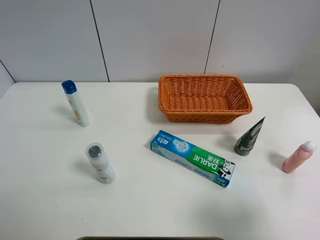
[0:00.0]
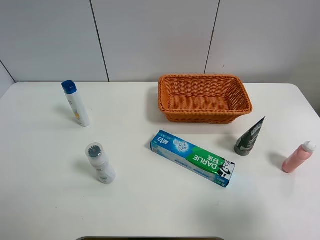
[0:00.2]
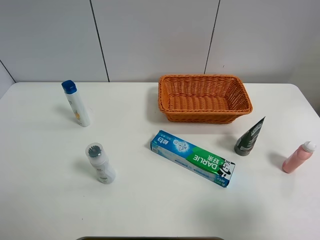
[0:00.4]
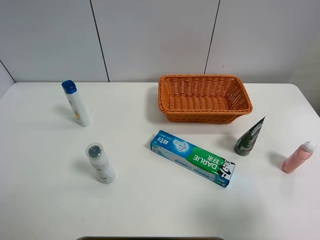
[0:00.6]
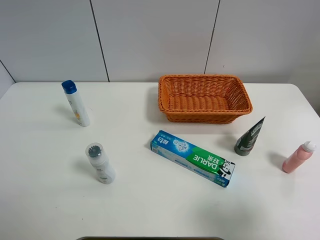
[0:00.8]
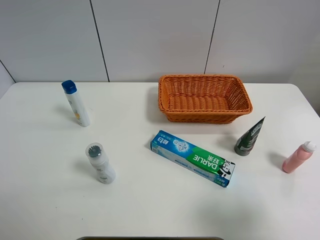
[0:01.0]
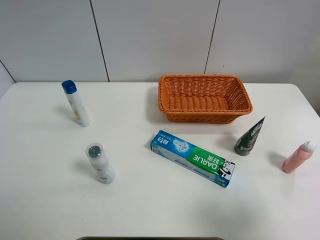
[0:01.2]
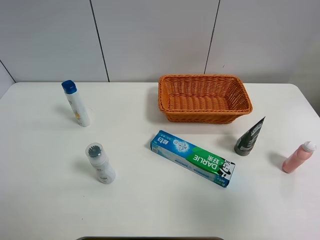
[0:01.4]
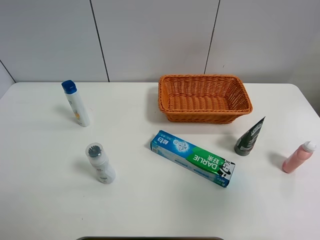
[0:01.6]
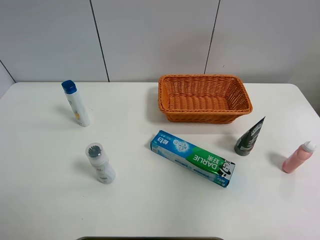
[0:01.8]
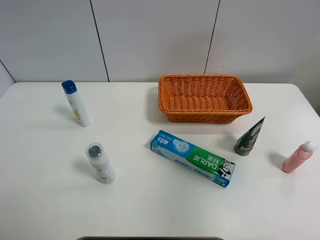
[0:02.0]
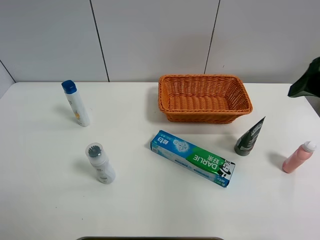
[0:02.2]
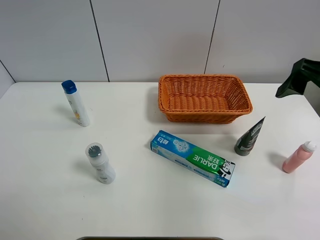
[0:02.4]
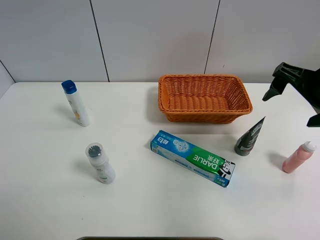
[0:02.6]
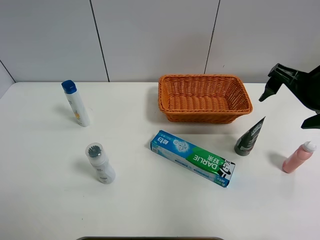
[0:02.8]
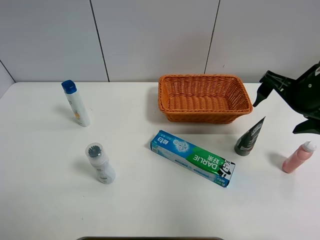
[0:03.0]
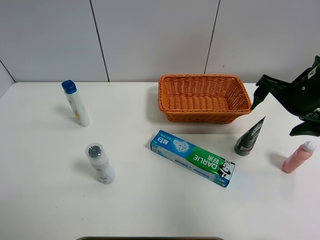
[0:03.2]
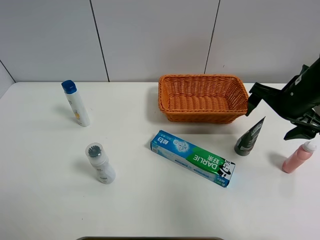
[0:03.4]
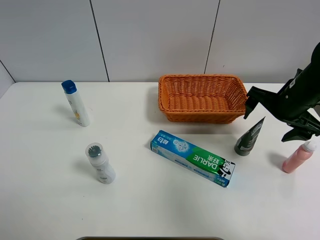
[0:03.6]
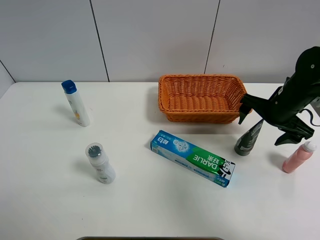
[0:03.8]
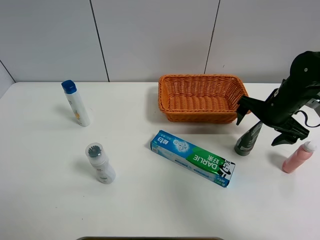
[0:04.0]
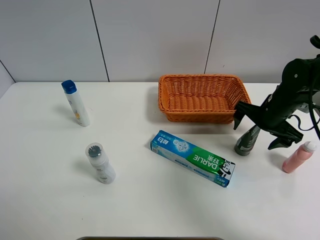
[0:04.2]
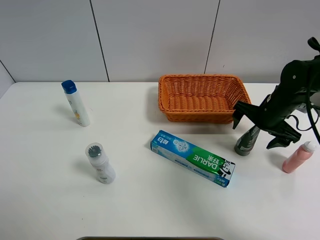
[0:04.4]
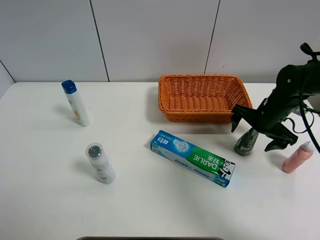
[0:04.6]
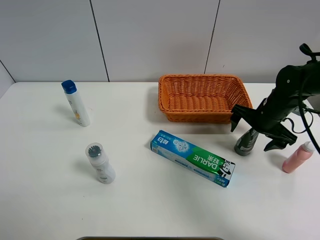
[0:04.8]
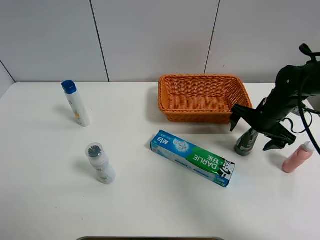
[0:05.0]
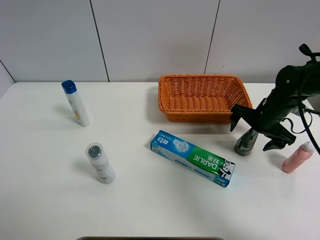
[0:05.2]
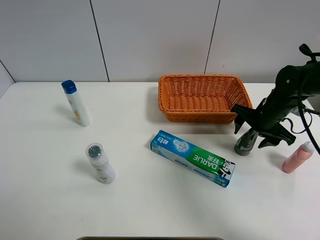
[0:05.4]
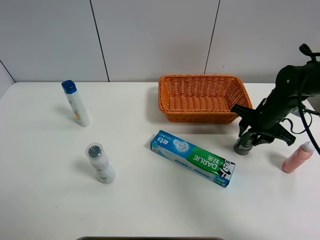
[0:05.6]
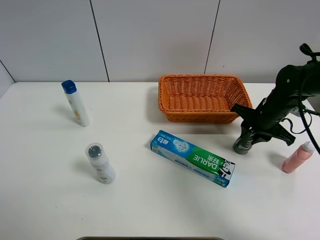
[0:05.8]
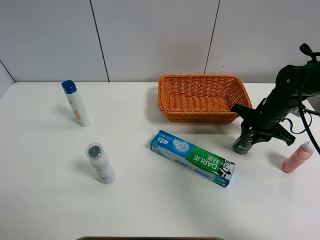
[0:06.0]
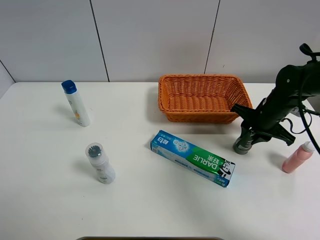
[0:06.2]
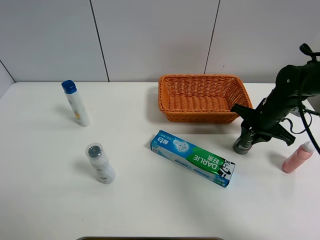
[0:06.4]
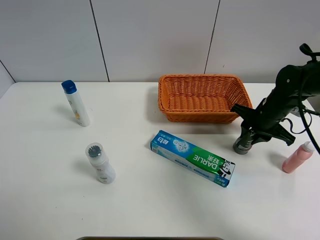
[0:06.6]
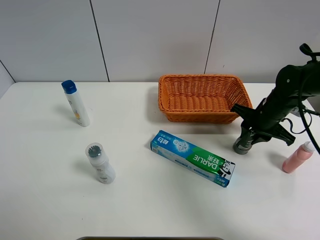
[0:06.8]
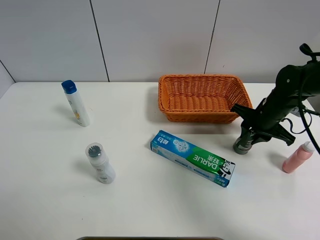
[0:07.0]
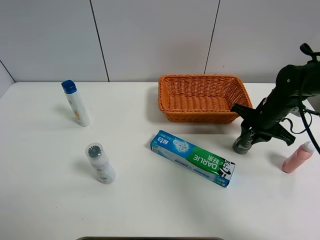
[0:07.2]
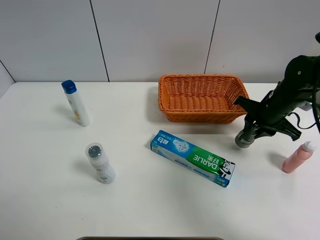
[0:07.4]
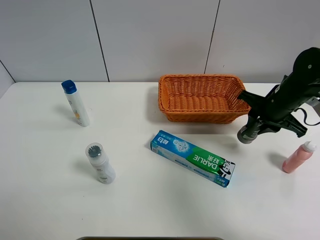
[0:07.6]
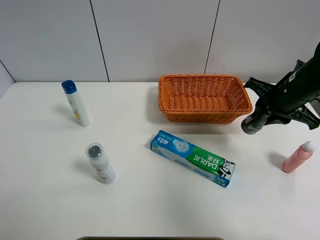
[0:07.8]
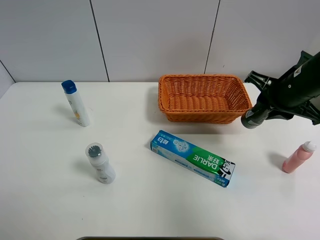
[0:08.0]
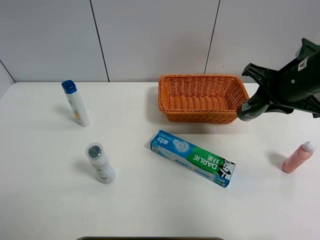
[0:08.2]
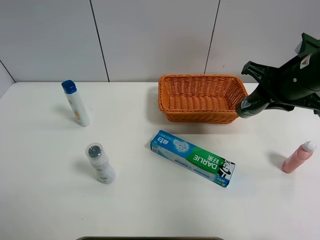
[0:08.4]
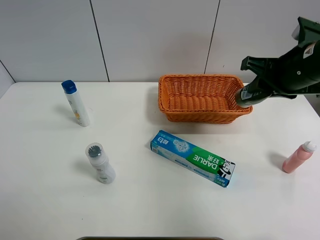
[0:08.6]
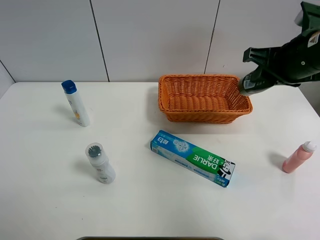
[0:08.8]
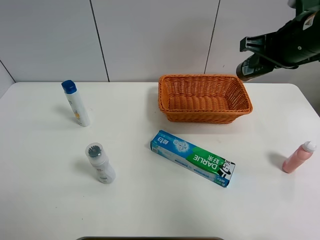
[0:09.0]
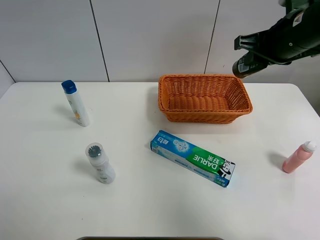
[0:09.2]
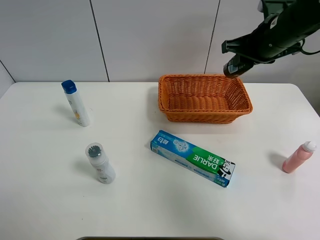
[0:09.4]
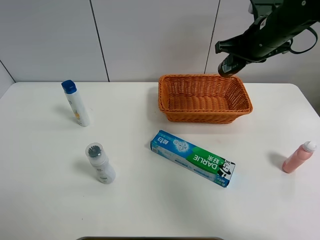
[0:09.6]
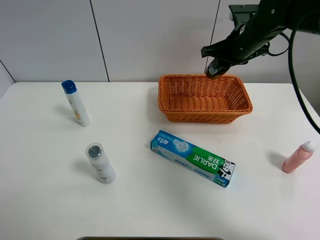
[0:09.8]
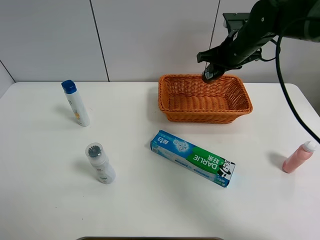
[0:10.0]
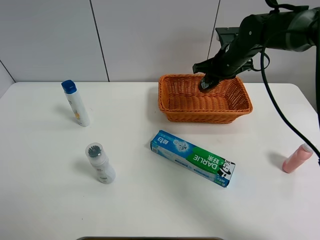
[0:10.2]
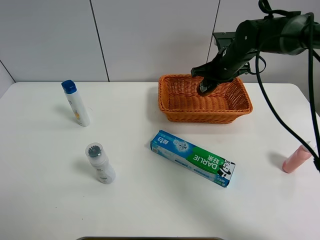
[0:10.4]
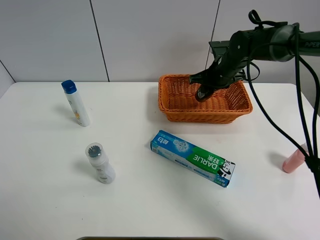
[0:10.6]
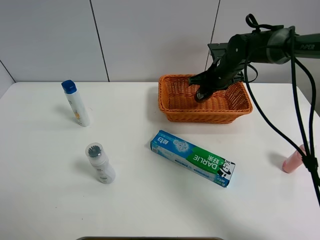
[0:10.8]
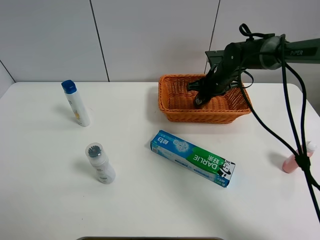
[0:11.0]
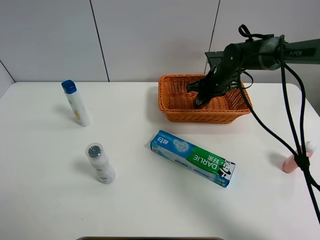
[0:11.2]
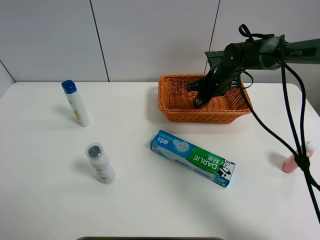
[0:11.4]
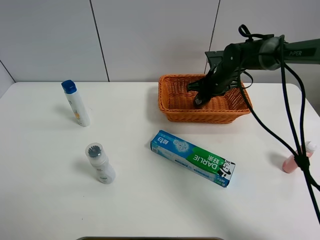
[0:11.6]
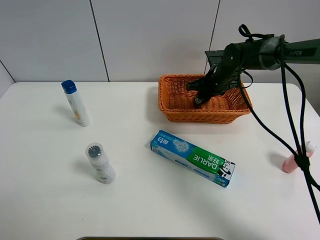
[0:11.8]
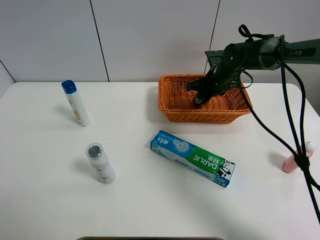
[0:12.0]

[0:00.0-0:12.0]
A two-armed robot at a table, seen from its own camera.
Task of the whole recording: Place the object closest to the toothpaste in the basket.
Step, 0:00.0 to 0:05.8: Grasp the soft facial cleanser with right gripper.
0:00.0 to 0:01.6: The right gripper goes about 10 cm upward.
0:01.6 to 0:03.0: The right gripper travels forward and downward by some 25 cm.
0:03.0 to 0:04.4: The right gripper moves downward and forward, some 10 cm.
0:04.4 to 0:06.0: The right gripper closes its fingers.
0:06.0 to 0:07.6: The right gripper heads upward, covering approximately 5 cm.
0:07.6 to 0:09.0: The right gripper is displaced upward by about 15 cm.
0:09.0 to 0:10.4: The right gripper travels forward, downward and to the left by about 20 cm.
0:10.4 to 0:12.0: The right gripper moves roughly 5 cm.

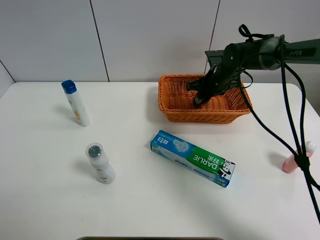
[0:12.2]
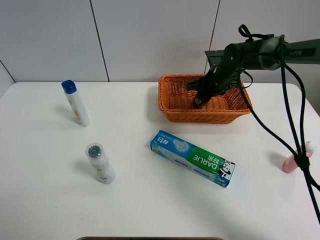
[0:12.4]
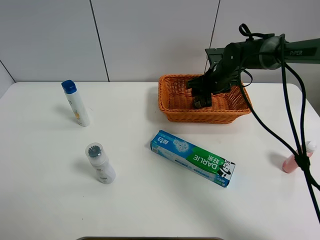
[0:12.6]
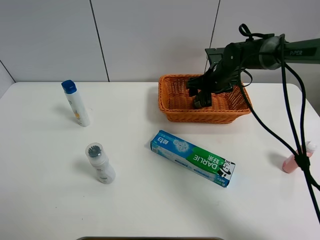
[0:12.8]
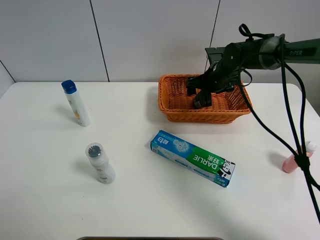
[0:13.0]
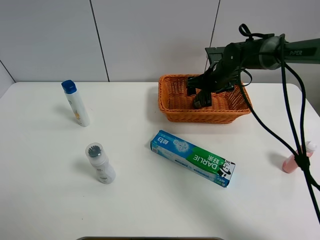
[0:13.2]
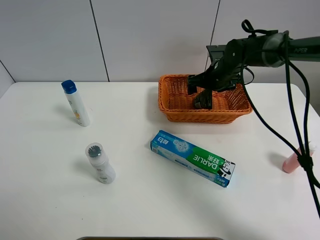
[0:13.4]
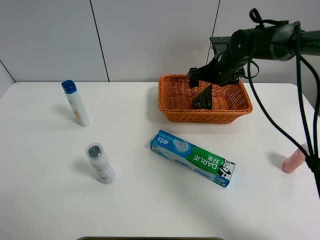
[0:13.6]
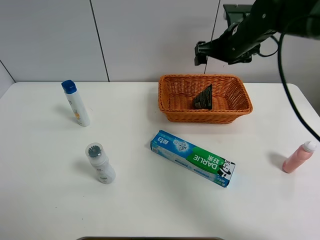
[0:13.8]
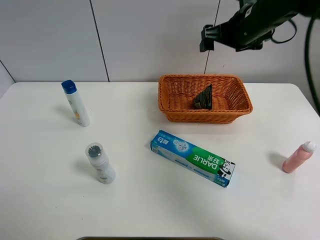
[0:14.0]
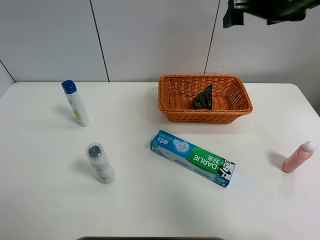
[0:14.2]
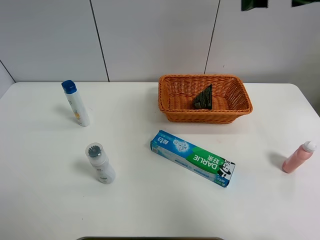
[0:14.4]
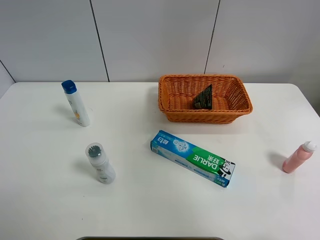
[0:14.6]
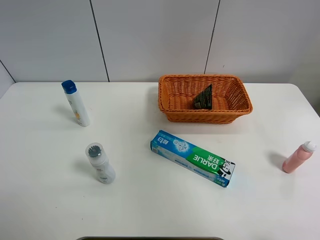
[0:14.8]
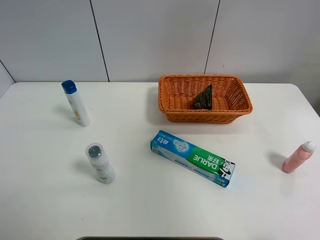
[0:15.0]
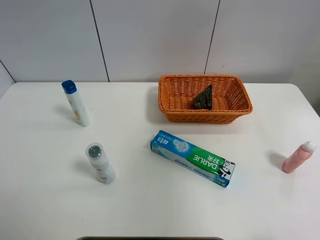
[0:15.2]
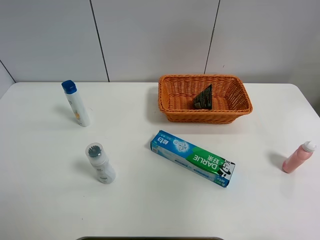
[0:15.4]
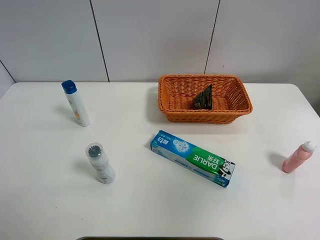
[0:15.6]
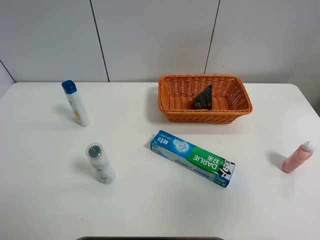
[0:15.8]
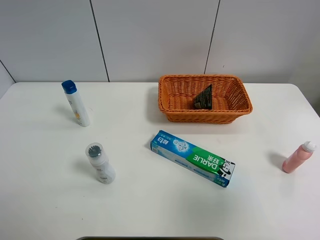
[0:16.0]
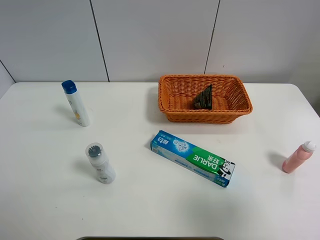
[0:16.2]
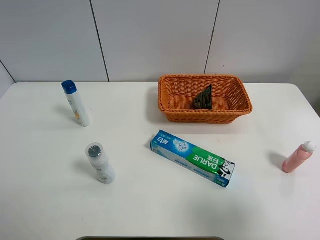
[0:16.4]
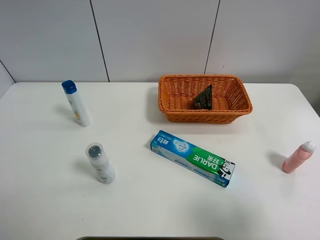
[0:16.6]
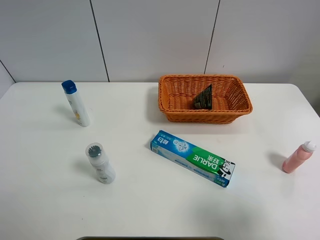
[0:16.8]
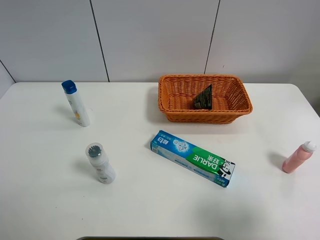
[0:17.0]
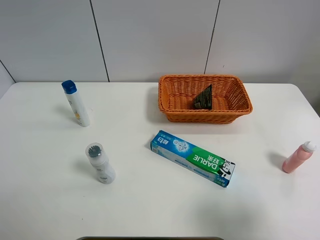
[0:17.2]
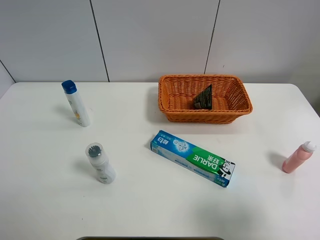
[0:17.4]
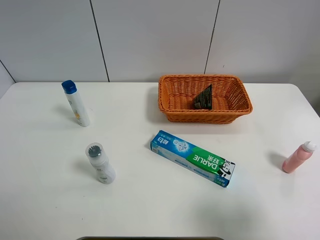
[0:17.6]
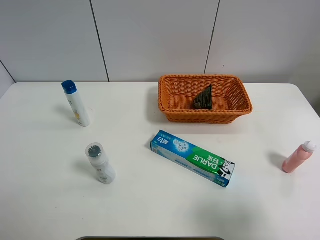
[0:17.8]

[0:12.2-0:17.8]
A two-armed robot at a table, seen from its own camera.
Task of the whole recording: Place the object closest to the toothpaste in the basket.
0:12.2 to 0:13.6: The right gripper travels upward by approximately 5 cm, and opens its fingers.
0:13.6 to 0:15.0: The right gripper heads backward and upward, covering some 40 cm.
0:15.0 to 0:16.4: The right gripper heads downward and backward, covering roughly 25 cm.
